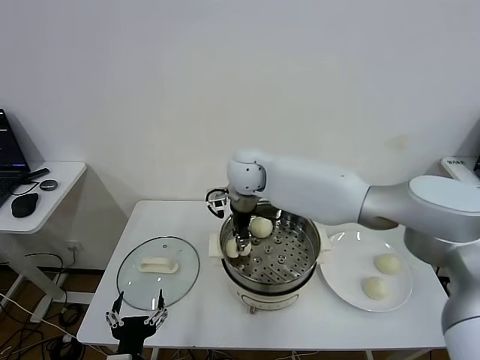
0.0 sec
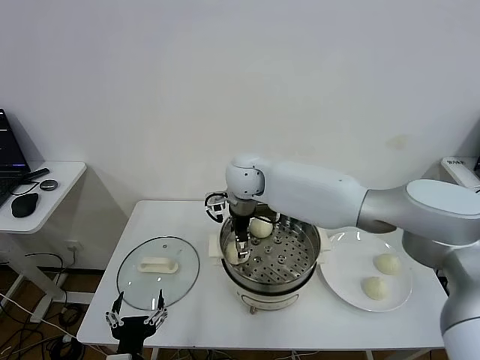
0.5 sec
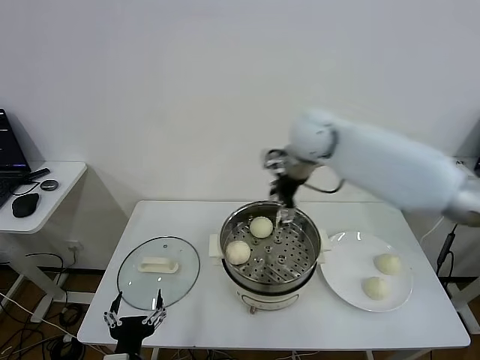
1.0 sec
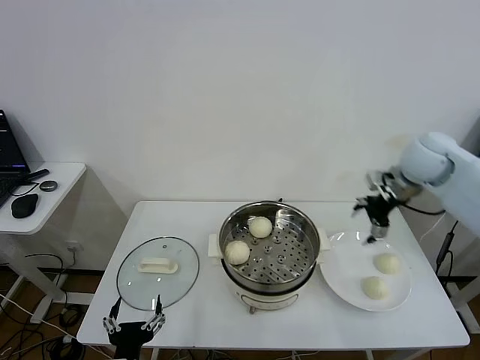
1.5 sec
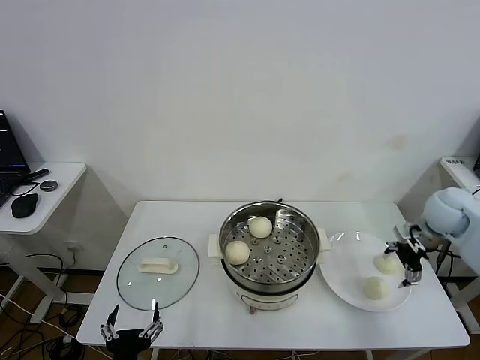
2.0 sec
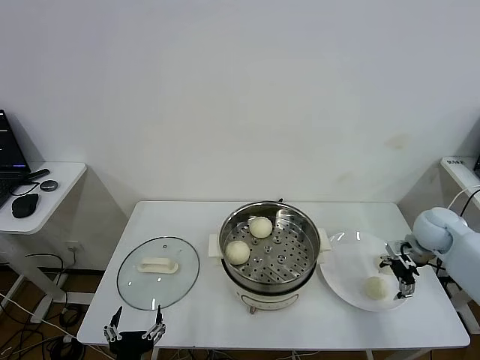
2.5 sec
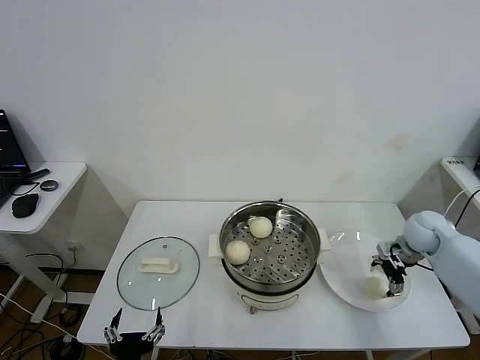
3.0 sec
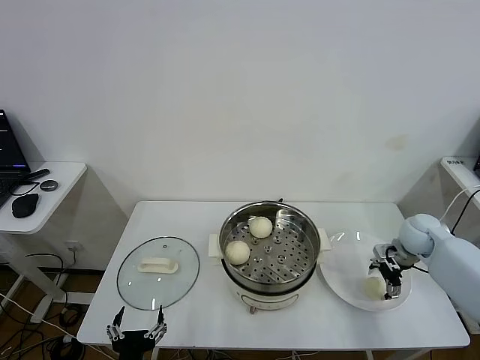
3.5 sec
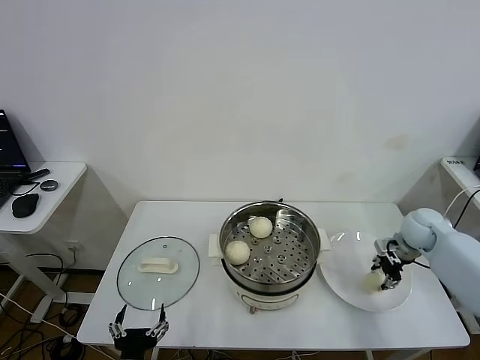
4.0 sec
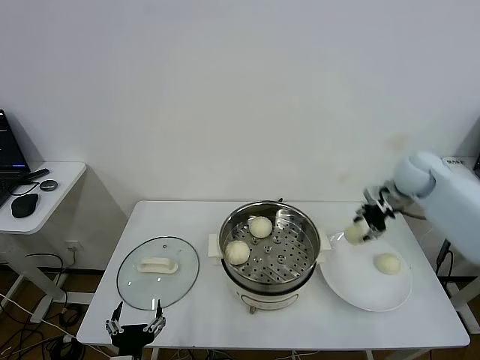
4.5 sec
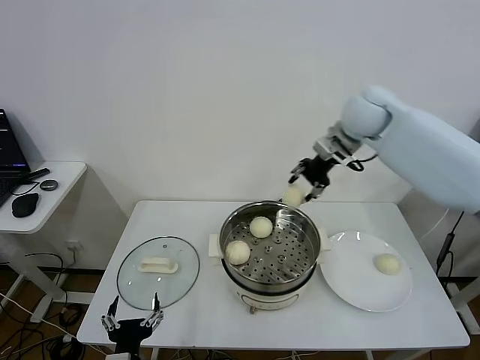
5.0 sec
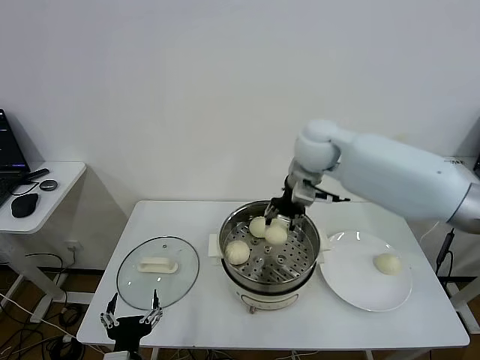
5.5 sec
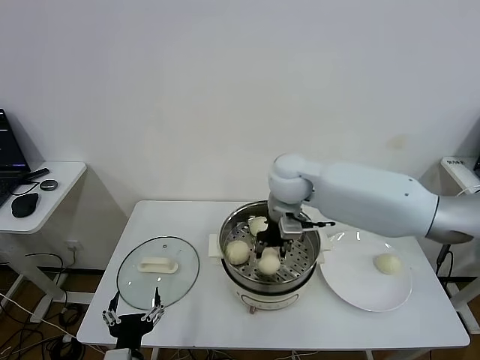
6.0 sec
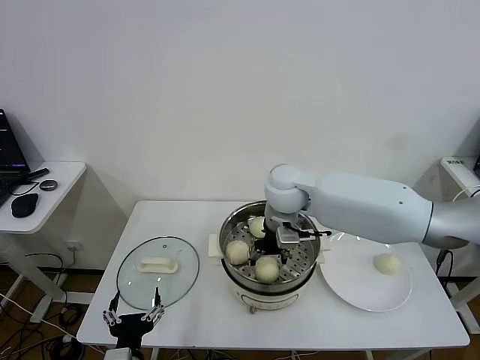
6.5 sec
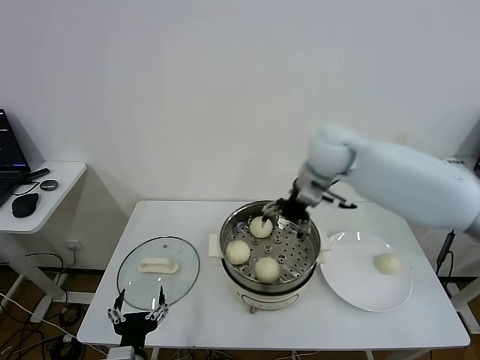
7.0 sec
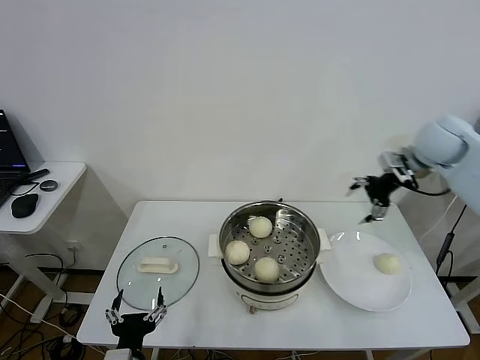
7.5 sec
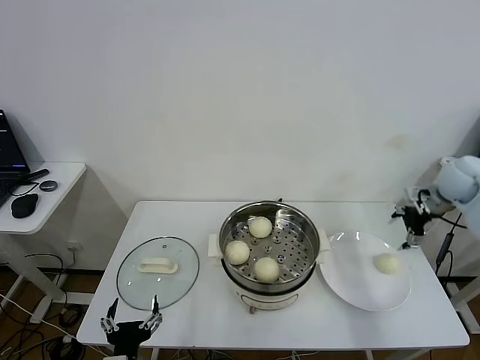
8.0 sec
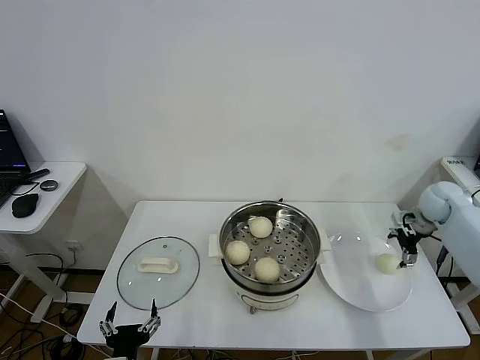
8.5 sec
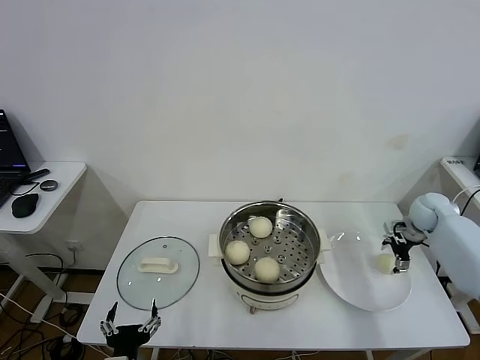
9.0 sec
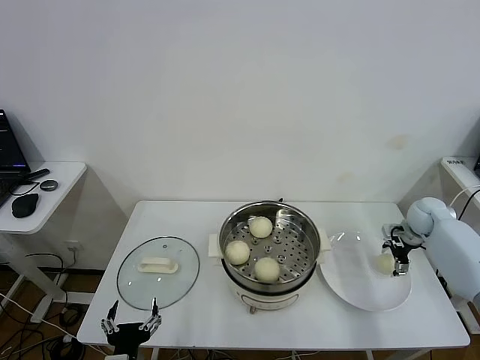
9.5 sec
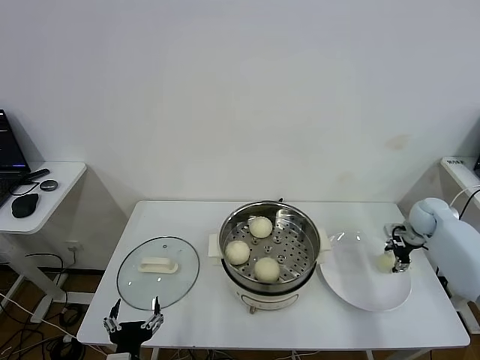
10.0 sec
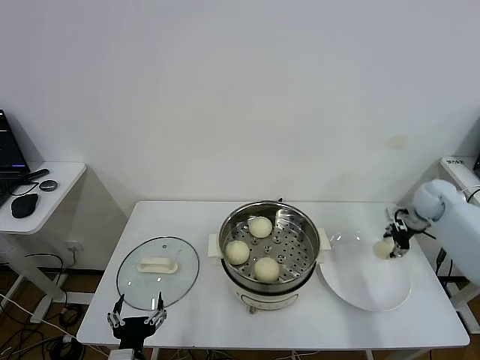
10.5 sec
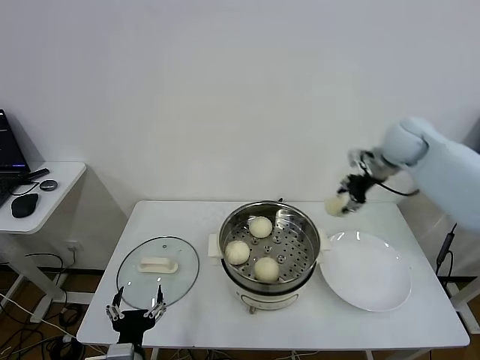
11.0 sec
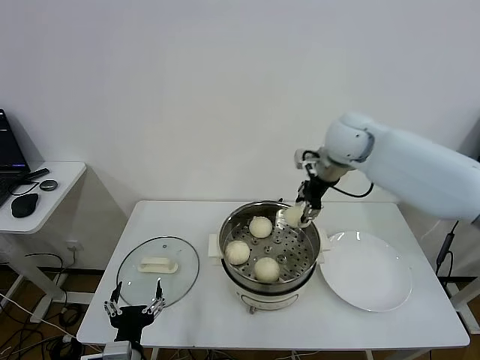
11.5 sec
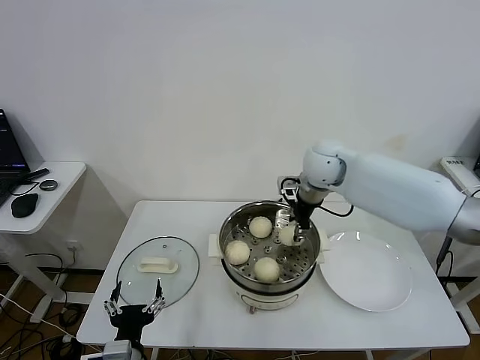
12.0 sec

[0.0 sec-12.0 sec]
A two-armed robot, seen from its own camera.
Task of the whole recording: take steamed baozi put them in steamer.
Step, 1.0 sec to 3.5 sec: Grasp the baozi in the plate with right gripper.
Step, 4.0 sec to 6.5 sec: Place the baozi on the steamer with right gripper.
Step, 7.0 sec to 10.0 sec: Grasp the baozi in the plate with right gripper.
0.0 sec to 2.0 sec: The right gripper heads to the right, covering some 40 cm, and opens up.
2.0 sec to 4.0 sec: The right gripper is displaced downward by some 10 cm, and closes.
4.0 sec to 6.0 sec: The right gripper goes roughly 35 cm to the left and upward.
6.0 sec to 8.0 sec: The right gripper moves to the right, about 40 cm, and opens its fingers.
8.0 sec to 10.0 sec: The right gripper travels downward by approximately 15 cm, and closes.
10.0 sec to 12.0 sec: The right gripper is displaced to the left and upward by about 35 cm.

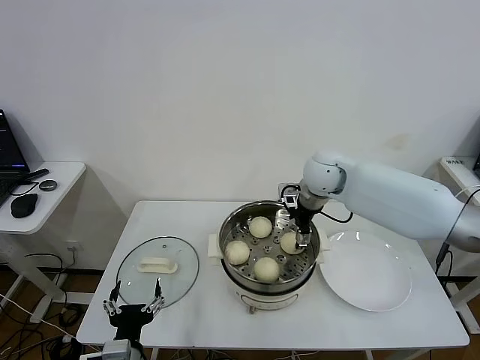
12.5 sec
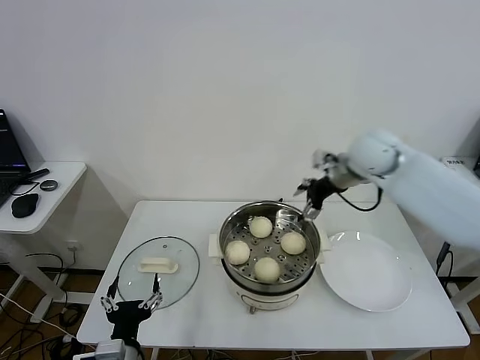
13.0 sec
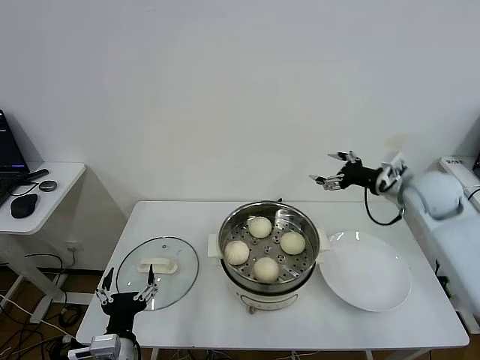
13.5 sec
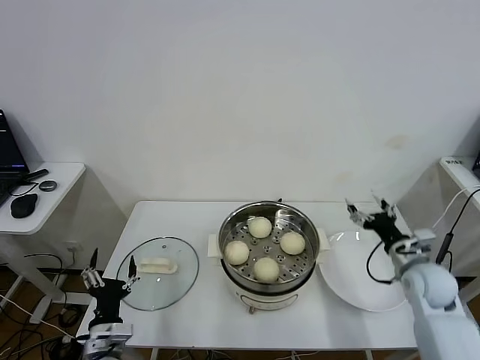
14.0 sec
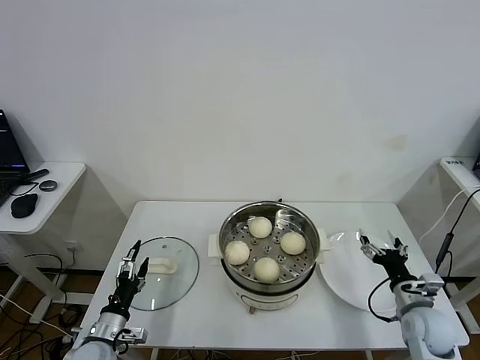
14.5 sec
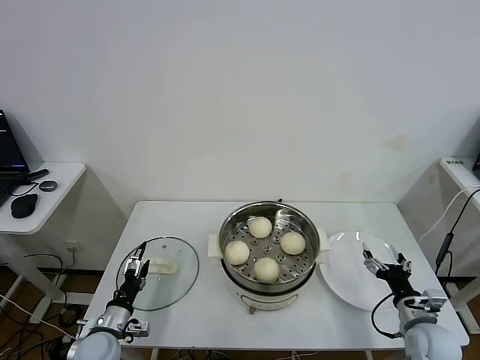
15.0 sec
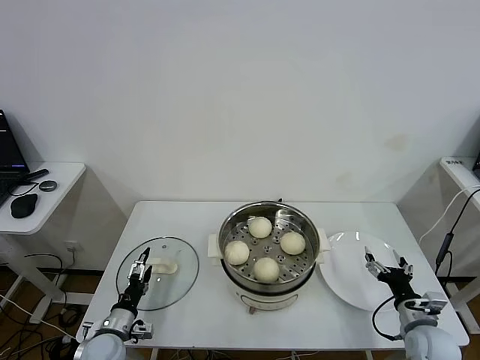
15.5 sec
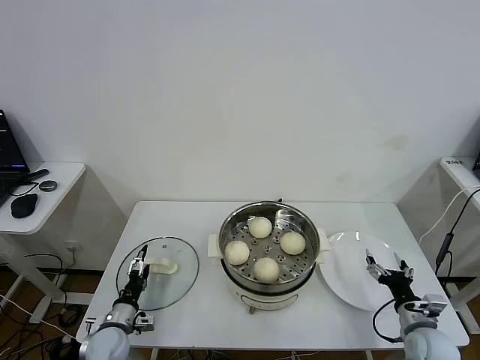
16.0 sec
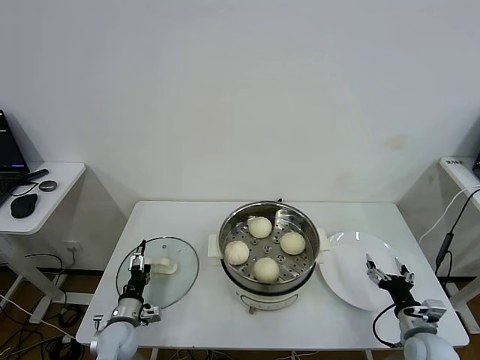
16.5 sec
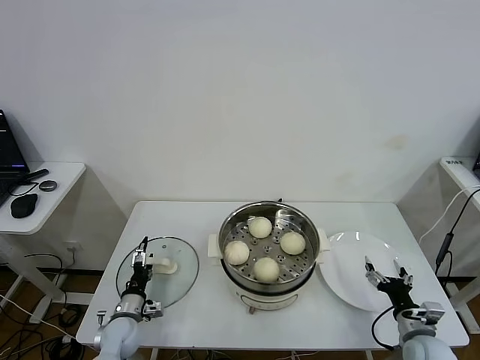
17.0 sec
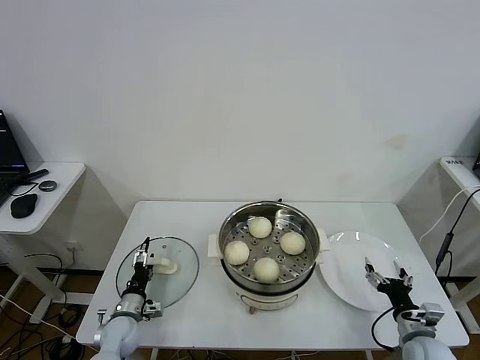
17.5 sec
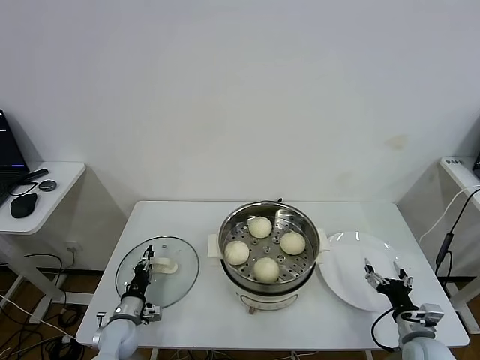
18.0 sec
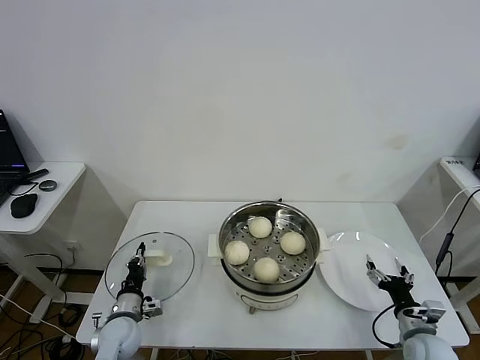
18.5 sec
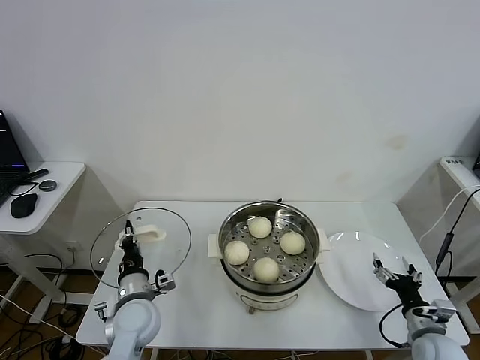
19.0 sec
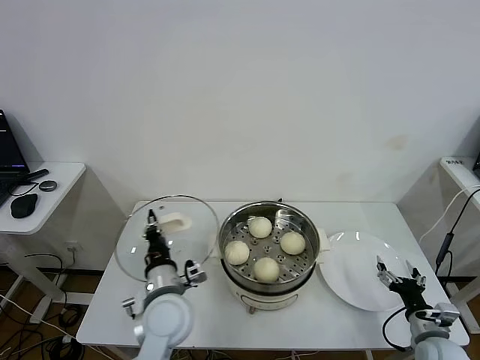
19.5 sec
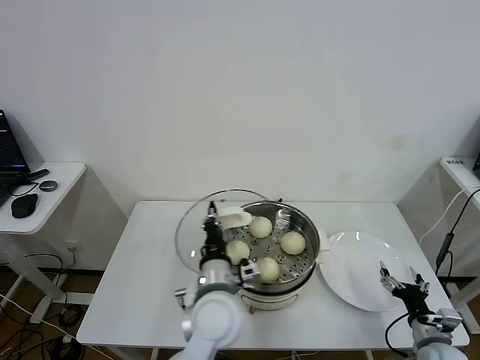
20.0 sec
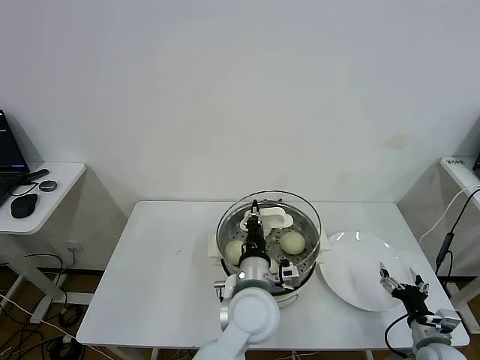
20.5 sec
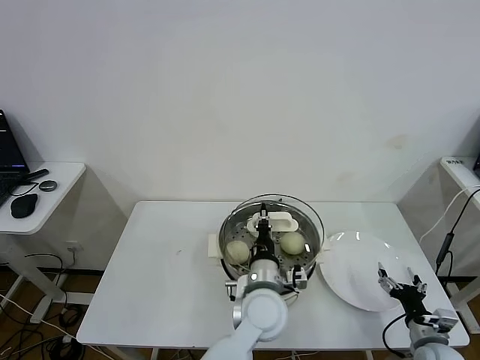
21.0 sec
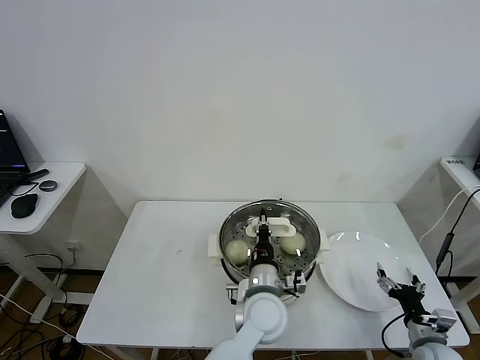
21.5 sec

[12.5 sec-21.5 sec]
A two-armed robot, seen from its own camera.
Task of the whole recording: take steamed baozi put them in steamer.
Step, 13.0 sec to 18.0 sec: Grasp the pot lid with left gripper.
12.5 sec to 14.5 sec: The left gripper heads to the left, forward and downward, covering some 15 cm. The right gripper shifts some 40 cm backward, downward and to the right.
14.5 sec to 17.0 sec: The left gripper moves forward and downward, approximately 10 cm. Meanwhile the right gripper heads downward, covering some 5 cm.
17.0 sec to 19.5 sec: The left gripper shifts about 25 cm upward and to the right, and closes up.
19.5 sec to 21.5 sec: The left gripper goes roughly 20 cm to the right.

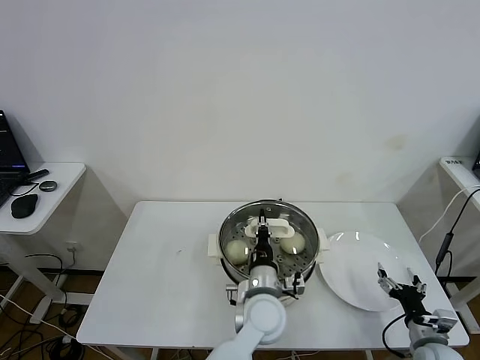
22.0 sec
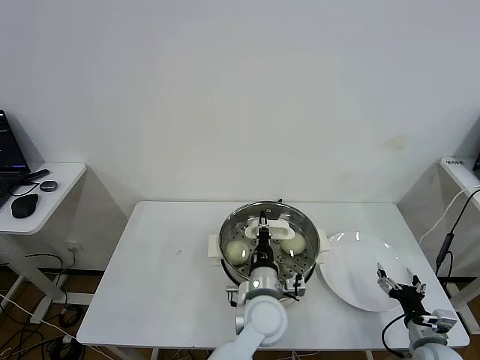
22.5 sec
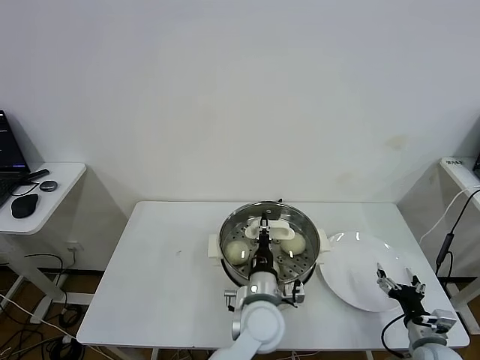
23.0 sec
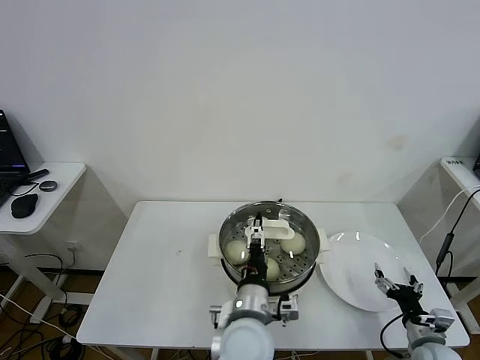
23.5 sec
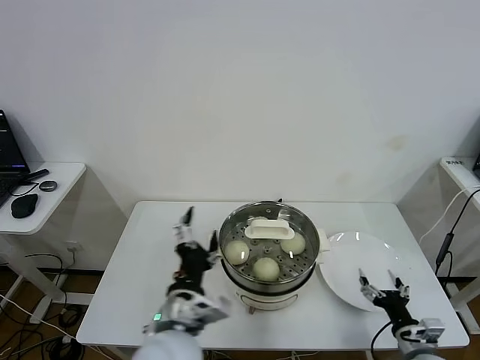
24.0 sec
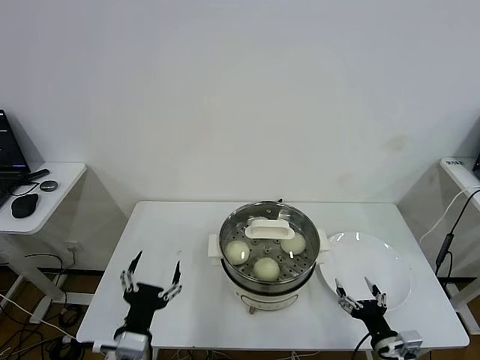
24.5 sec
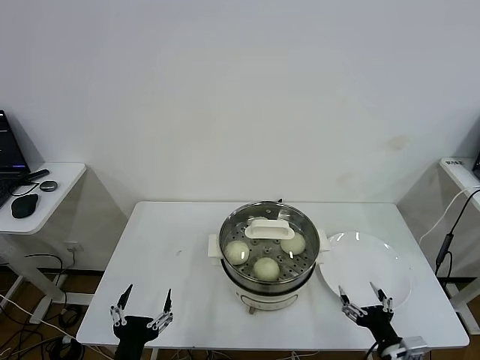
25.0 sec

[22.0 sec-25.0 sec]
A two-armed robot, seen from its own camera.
Task of the whole recording: take steamed baozi put them in steamer.
22.0 sec to 23.5 sec: The left gripper moves backward, about 5 cm, and opens up.
23.5 sec to 25.0 sec: The right gripper goes some 10 cm to the left and backward, while the left gripper goes roughly 25 cm to the left and backward.
